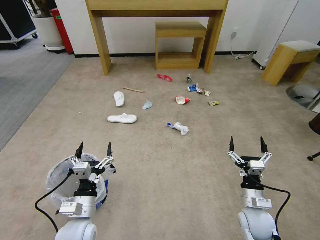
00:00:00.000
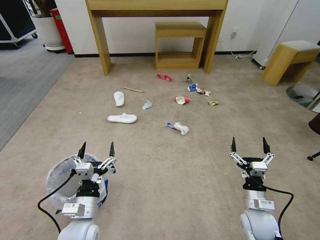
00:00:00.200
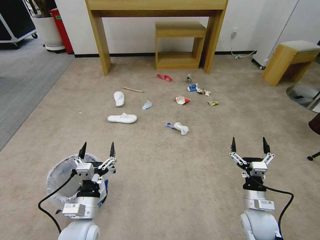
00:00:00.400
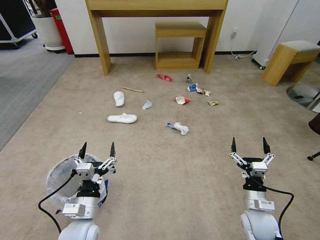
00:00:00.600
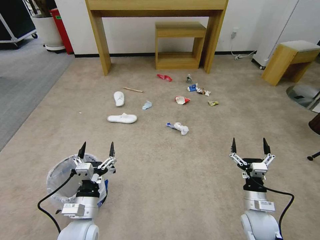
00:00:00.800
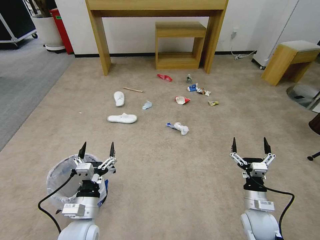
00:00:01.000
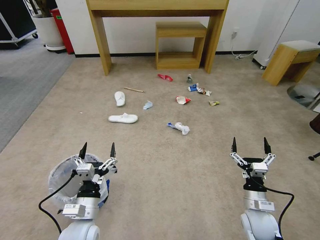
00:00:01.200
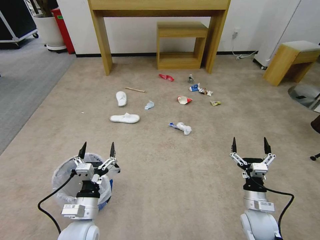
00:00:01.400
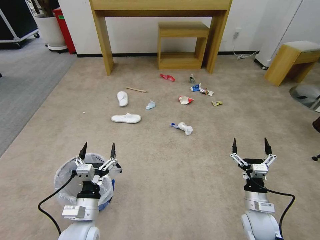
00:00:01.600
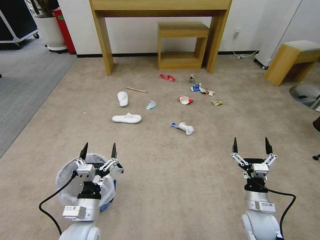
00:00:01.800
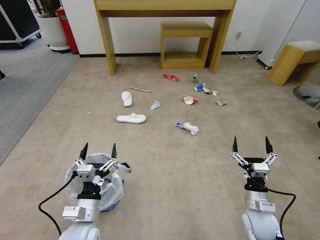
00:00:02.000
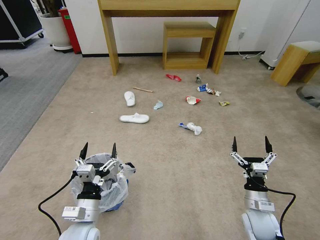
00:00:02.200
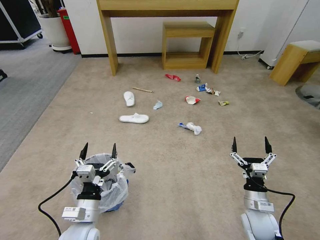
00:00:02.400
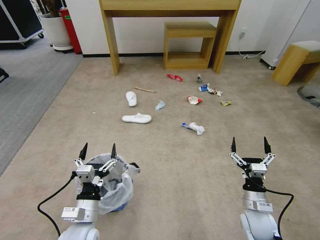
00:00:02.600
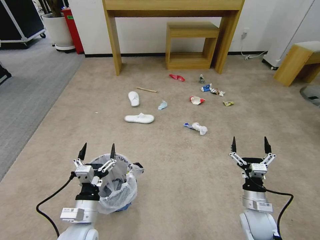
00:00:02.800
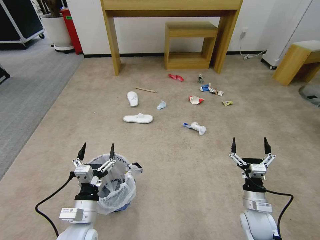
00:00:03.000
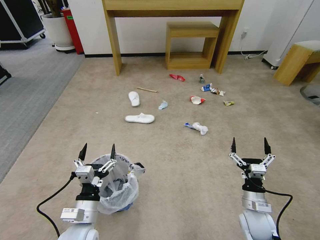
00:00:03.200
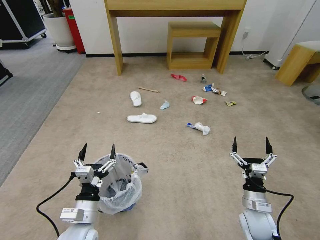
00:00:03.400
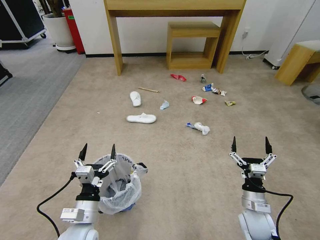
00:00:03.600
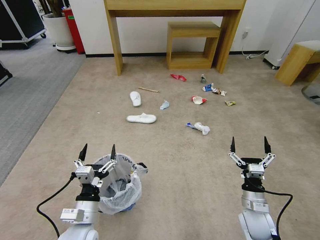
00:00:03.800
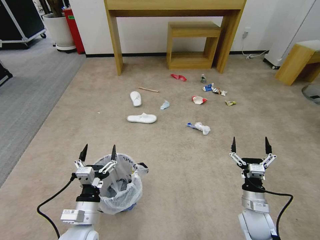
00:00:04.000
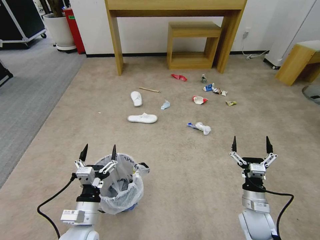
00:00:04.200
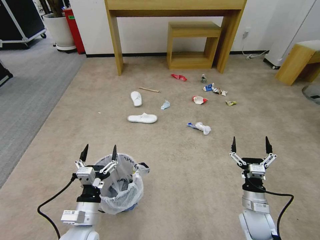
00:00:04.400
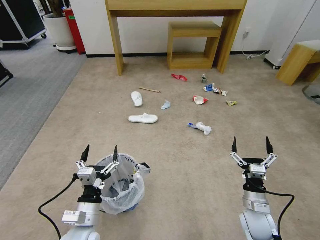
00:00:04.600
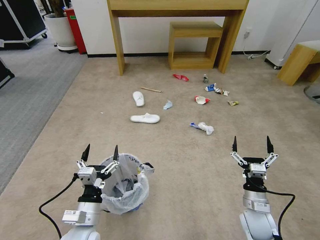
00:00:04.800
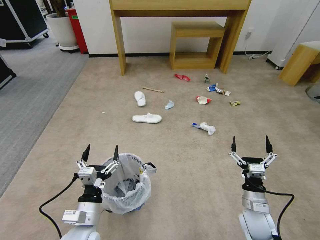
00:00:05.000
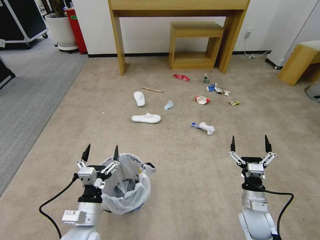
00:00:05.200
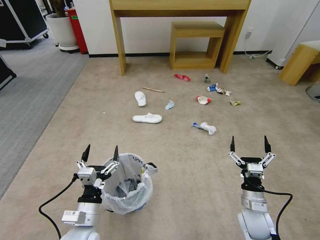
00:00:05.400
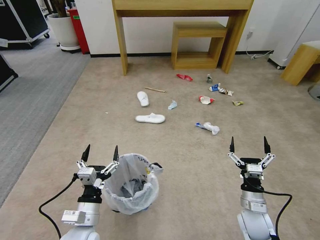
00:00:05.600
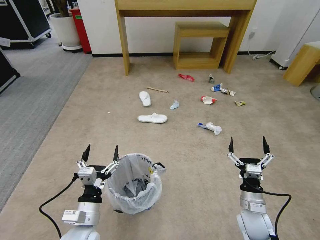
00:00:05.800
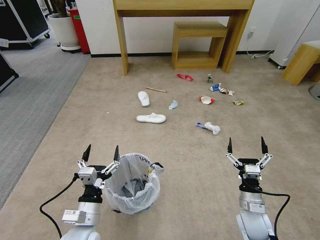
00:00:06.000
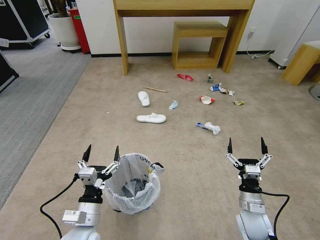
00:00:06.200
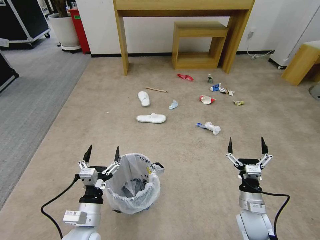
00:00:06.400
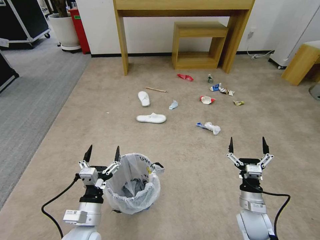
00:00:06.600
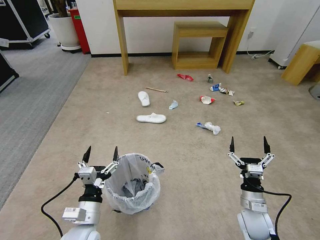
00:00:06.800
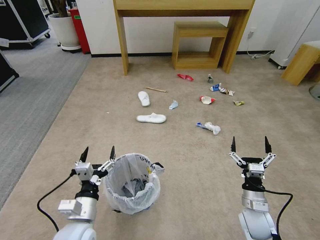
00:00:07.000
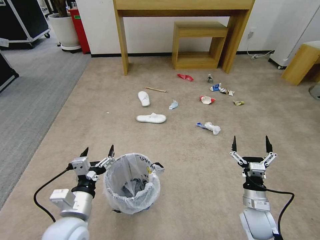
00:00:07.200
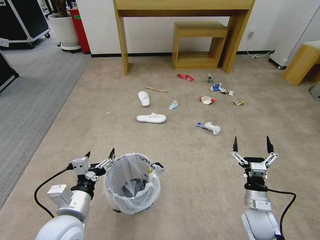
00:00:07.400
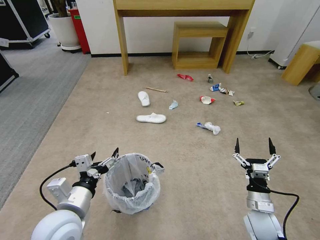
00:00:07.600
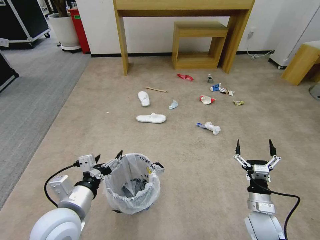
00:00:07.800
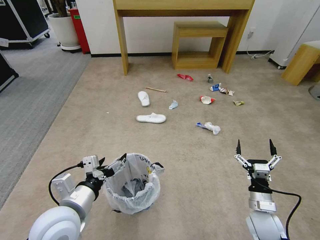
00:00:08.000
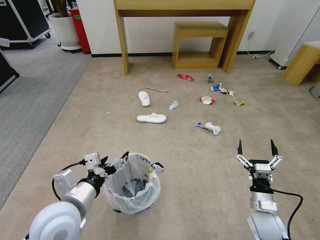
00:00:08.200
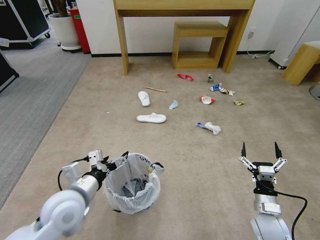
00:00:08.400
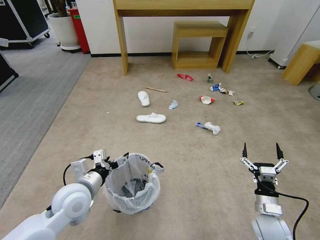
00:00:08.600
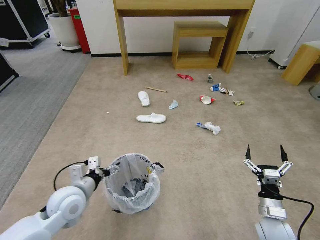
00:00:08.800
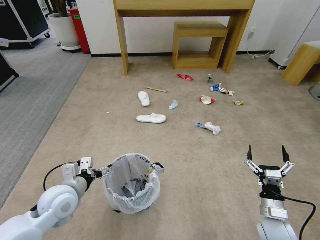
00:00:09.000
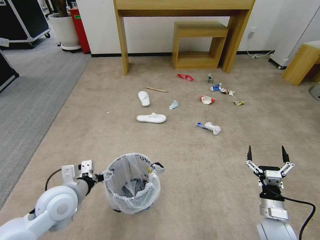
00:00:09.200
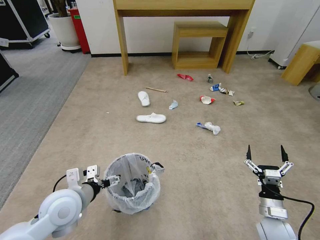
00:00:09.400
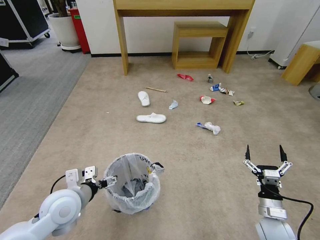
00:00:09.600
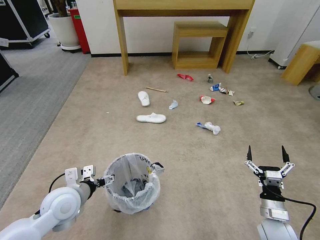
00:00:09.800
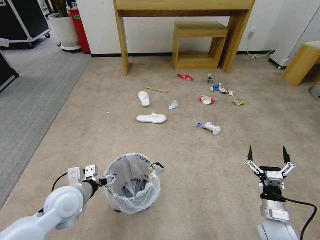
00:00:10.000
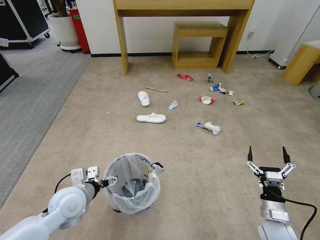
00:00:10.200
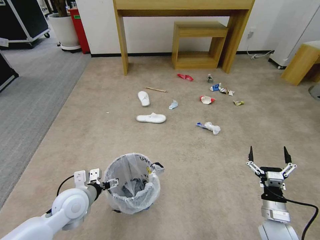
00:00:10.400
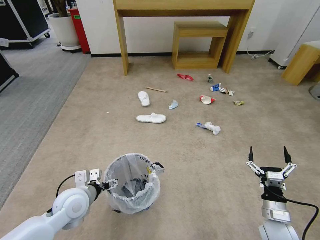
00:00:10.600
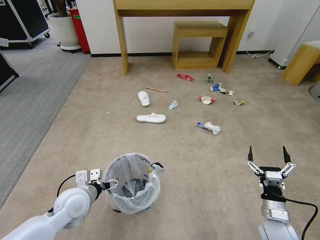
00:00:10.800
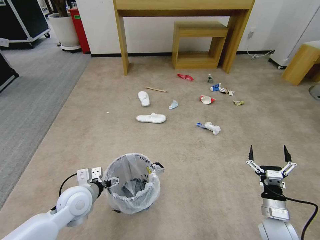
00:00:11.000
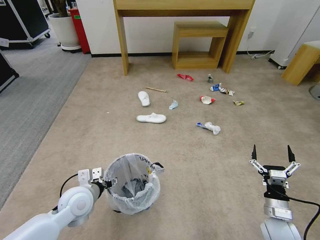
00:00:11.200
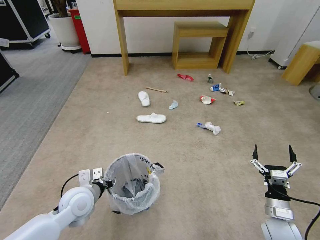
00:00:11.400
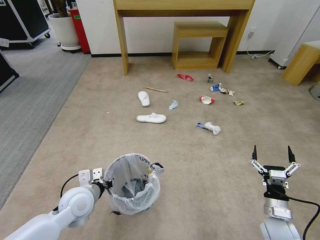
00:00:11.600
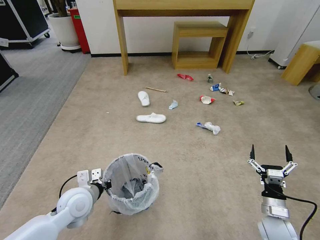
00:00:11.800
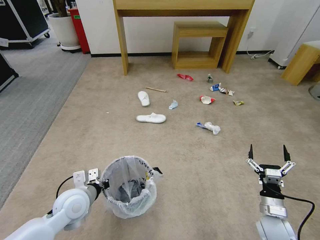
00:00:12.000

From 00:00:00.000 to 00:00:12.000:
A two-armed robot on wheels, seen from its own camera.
Task of the whole recording: Pick up the trash bin and place the garbage on the floor into it.
From 00:00:01.600 to 00:00:03.000: The two grippers keep their place.
From 00:00:03.000 to 00:00:04.400: Neither gripper changes place.
From 00:00:04.400 to 00:00:06.000: Both grippers stay put.
From 00:00:06.000 to 00:00:07.600: The left gripper travels upward by about 10 cm.
From 00:00:07.600 to 00:00:09.000: The left gripper travels forward and to the left by some 10 cm.
From 00:00:09.000 to 00:00:10.400: The grippers stay close to where they were, moving slightly.
From 00:00:10.400 to 00:00:12.000: The left gripper closes.

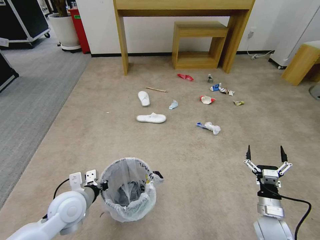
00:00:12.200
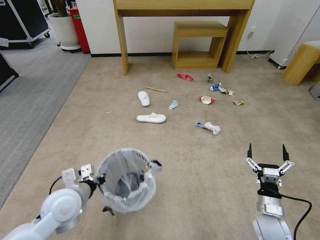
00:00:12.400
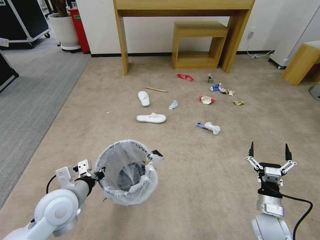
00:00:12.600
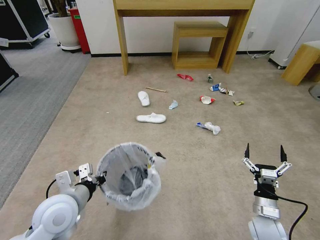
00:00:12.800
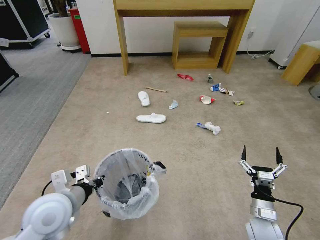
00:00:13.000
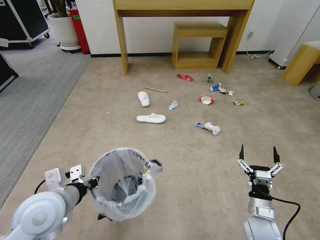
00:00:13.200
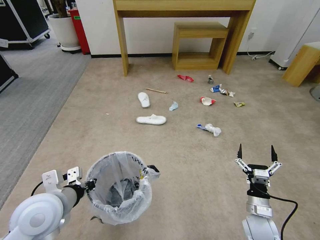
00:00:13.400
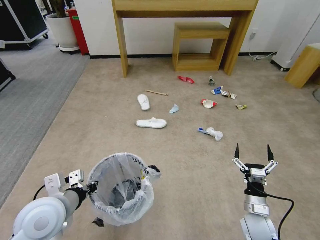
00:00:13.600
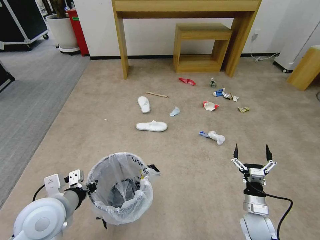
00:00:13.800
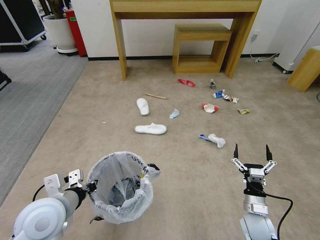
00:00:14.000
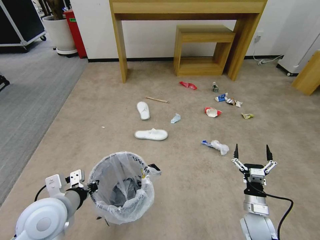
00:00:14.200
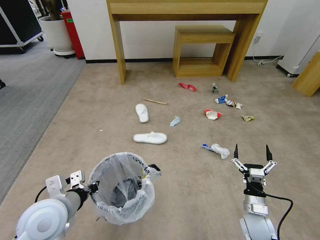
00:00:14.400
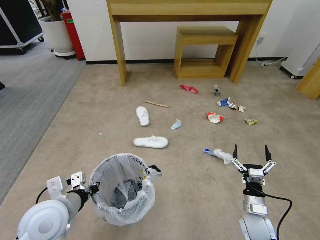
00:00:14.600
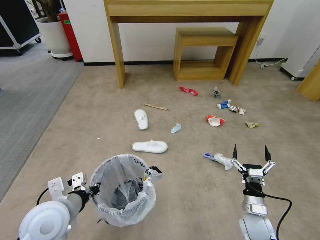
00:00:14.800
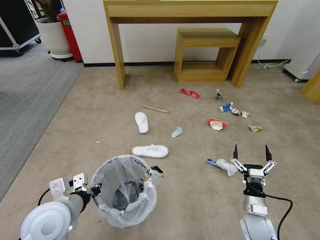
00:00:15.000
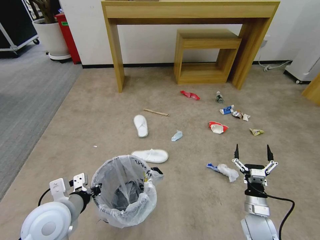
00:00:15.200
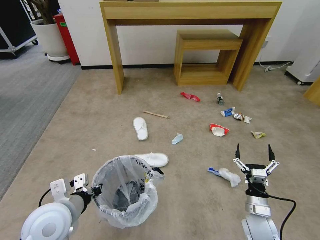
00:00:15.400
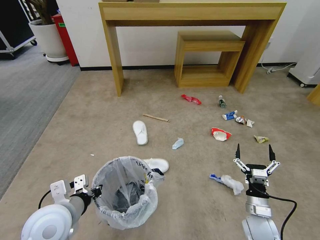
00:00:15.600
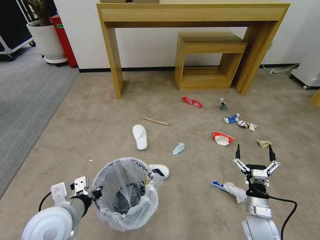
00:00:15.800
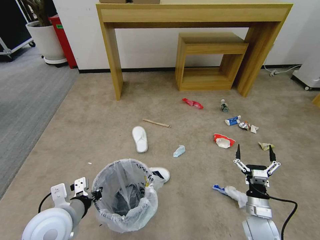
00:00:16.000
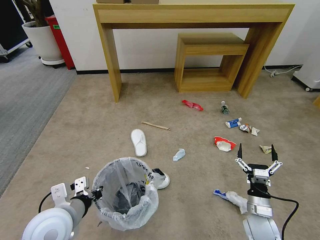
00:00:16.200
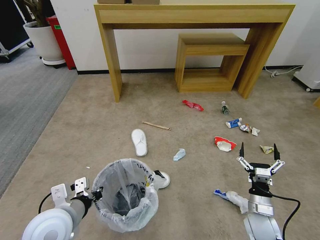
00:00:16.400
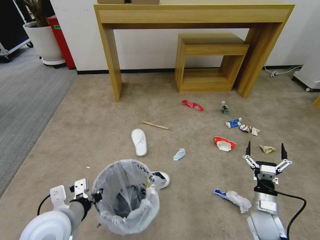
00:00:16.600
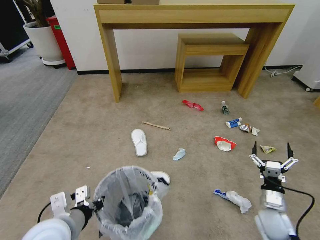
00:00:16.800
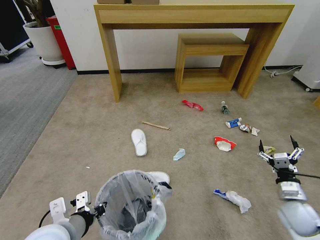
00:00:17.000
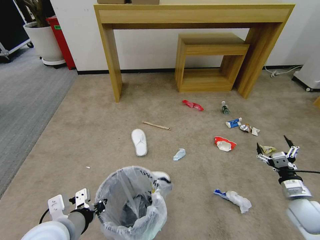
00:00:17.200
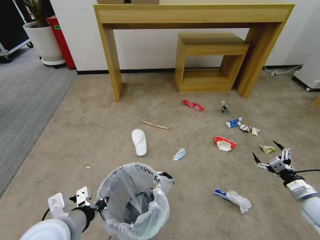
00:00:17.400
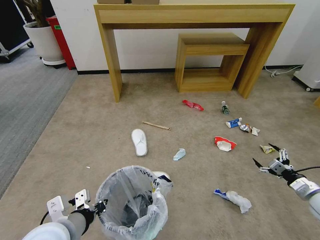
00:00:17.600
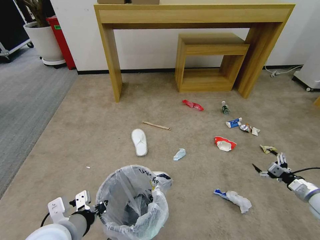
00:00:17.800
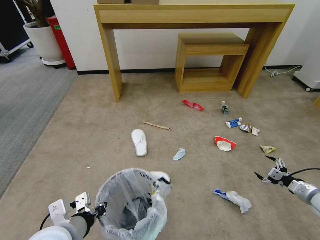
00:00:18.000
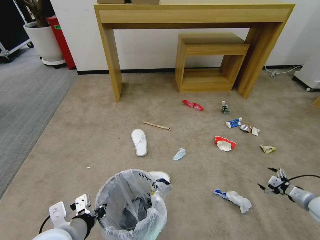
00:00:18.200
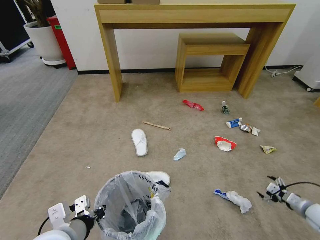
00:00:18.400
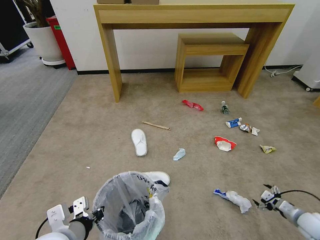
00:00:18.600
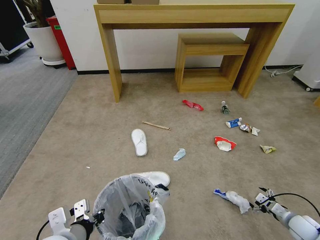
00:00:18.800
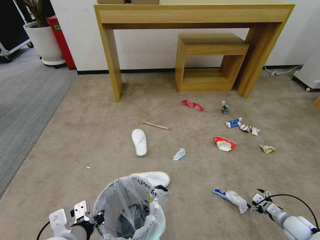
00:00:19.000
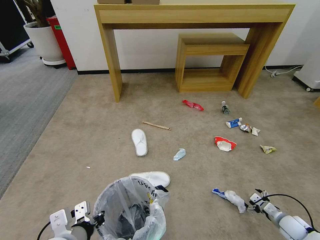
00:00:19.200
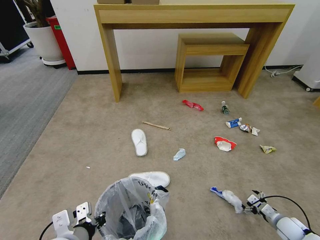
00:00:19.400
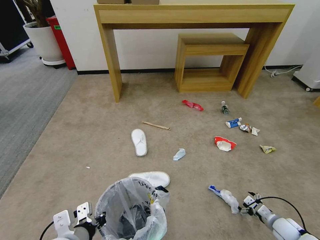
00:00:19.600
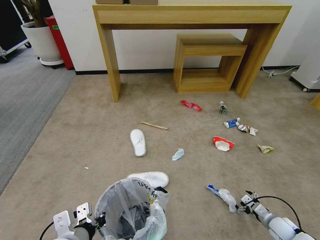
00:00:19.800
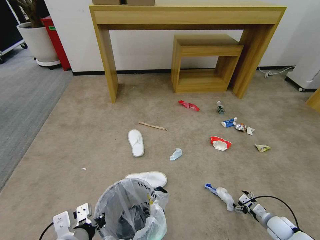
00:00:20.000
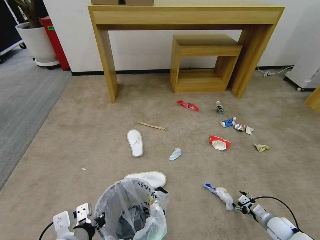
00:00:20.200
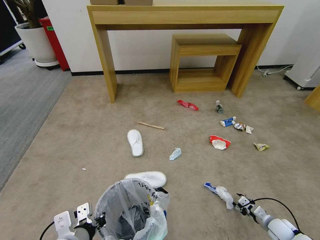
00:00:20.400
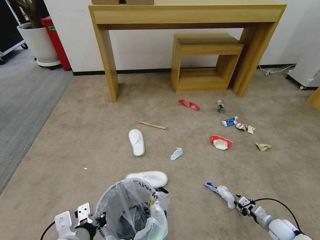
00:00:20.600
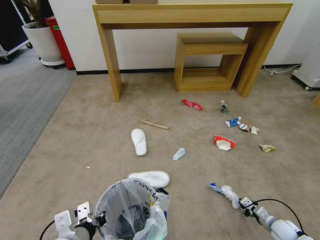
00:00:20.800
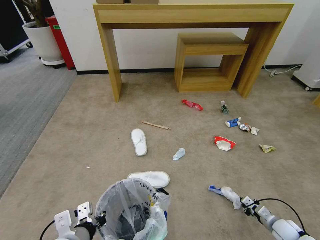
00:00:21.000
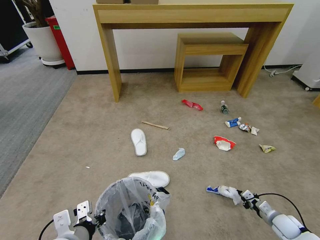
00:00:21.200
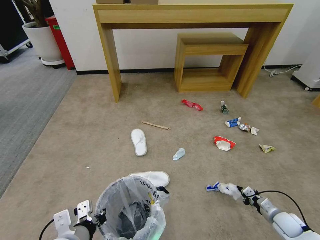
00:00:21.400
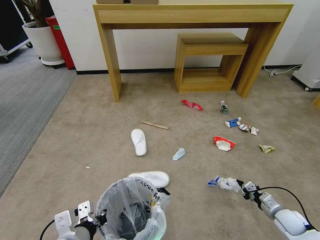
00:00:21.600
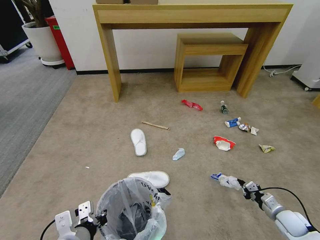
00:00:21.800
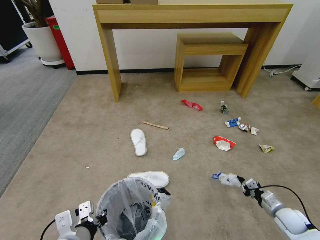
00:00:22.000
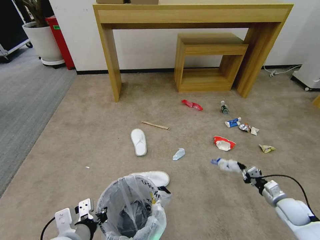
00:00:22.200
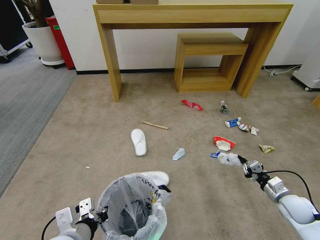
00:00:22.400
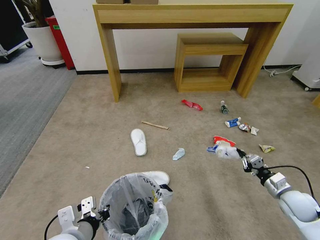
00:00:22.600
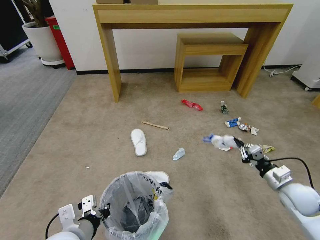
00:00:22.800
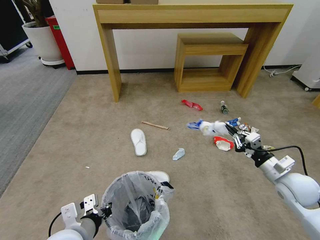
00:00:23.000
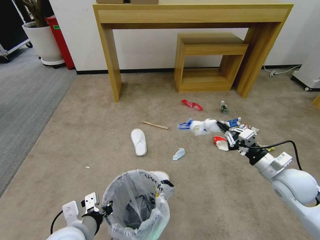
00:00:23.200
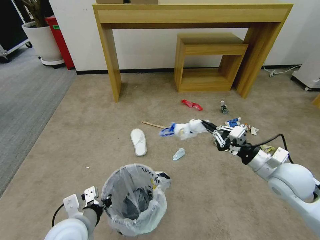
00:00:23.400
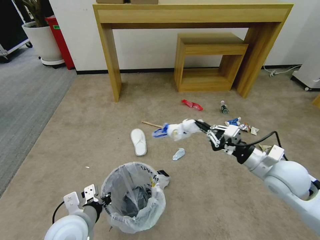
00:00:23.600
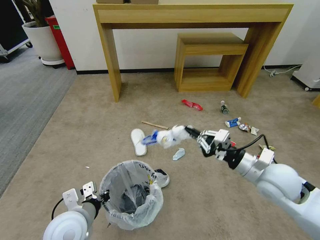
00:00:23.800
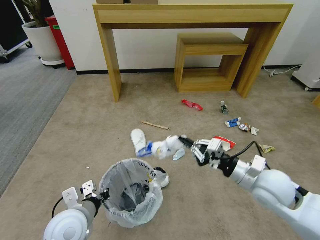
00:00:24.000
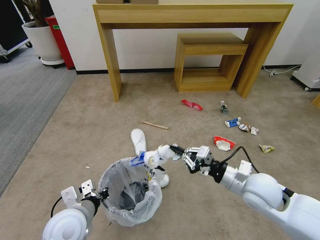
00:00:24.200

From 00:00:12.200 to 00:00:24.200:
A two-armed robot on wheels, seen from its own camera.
Task of the whole recording: Pick up the trash bin and place the garbage on the floor into it.
From 00:00:12.200 to 00:00:13.800: The left gripper shifts some 5 cm upward.
From 00:00:16.600 to 00:00:18.200: The right gripper heads to the right, covering about 25 cm.
From 00:00:18.200 to 00:00:19.800: The right gripper moves downward and to the left, some 15 cm.
From 00:00:19.800 to 00:00:21.200: The right gripper closes its fingers.
From 00:00:21.200 to 00:00:22.600: The right gripper moves upward, about 15 cm.
From 00:00:22.600 to 00:00:24.200: The right gripper shifts about 20 cm to the left and upward. Meanwhile the left gripper moves forward, some 5 cm.
